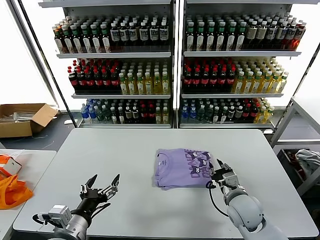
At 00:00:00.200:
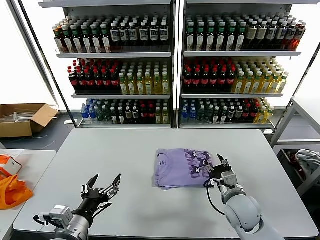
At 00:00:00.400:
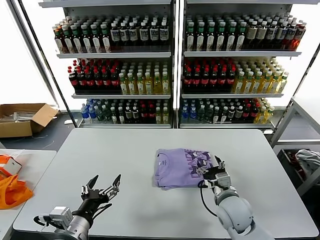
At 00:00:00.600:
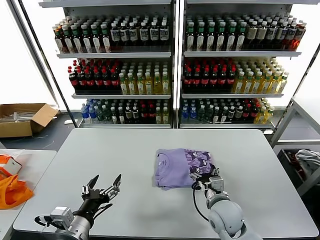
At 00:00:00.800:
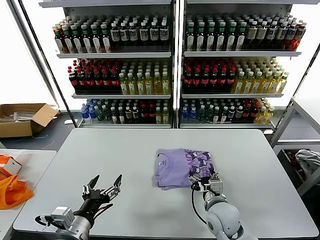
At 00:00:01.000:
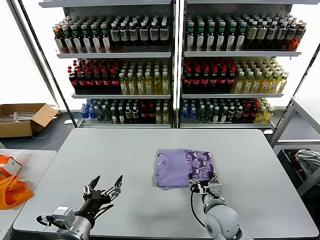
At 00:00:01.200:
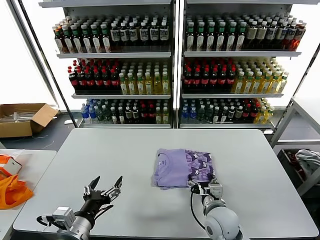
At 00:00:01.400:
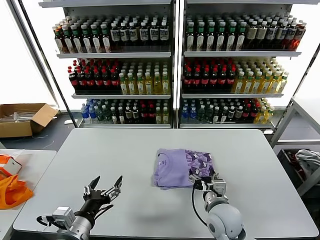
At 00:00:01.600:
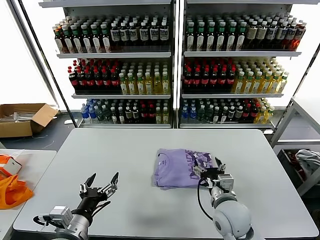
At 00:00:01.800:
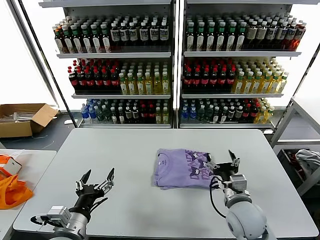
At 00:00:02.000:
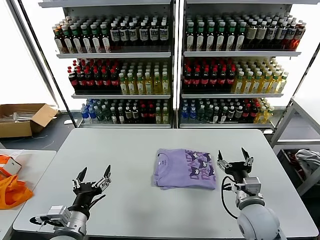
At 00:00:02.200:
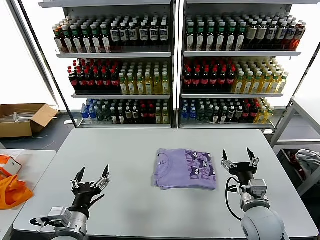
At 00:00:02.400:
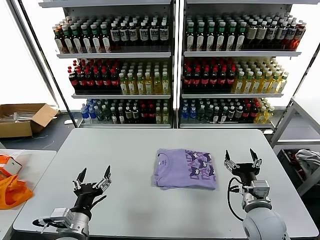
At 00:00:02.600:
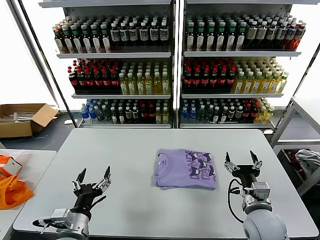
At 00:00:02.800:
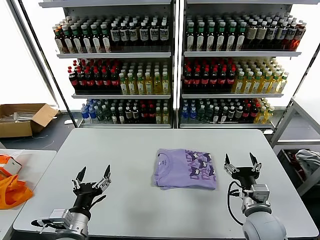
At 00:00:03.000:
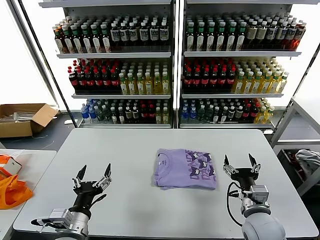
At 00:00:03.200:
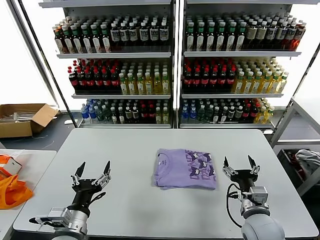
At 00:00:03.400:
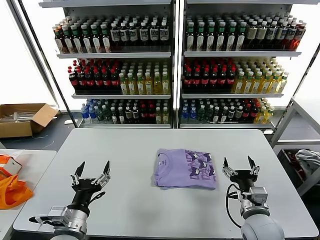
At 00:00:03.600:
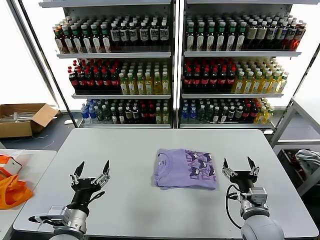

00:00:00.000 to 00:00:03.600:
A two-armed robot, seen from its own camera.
Task of the whole recording: fold and organize the clothes.
Step, 00:00:00.000 to 00:00:01.200: Drag the clothes to the center of the table.
00:00:00.000 to 00:00:01.800: The right gripper shifts by about 5 cm, and opens.
00:00:01.800 to 00:00:03.600: The right gripper shifts by about 5 cm.
